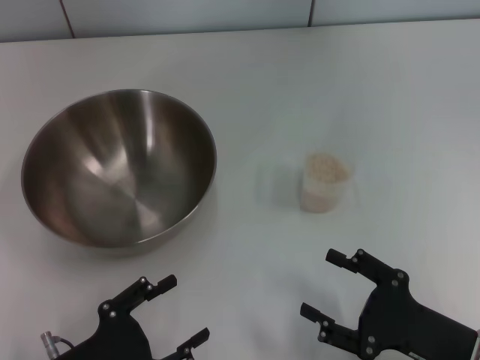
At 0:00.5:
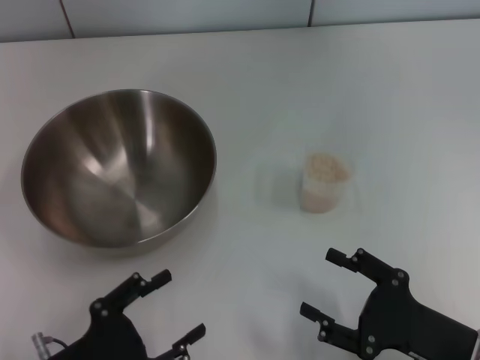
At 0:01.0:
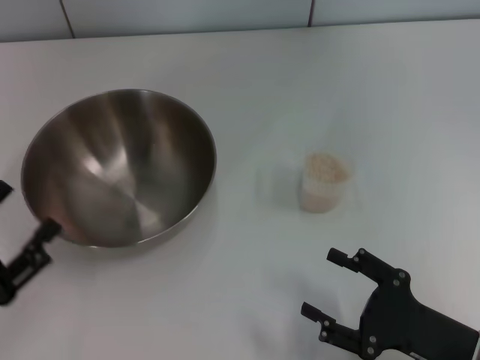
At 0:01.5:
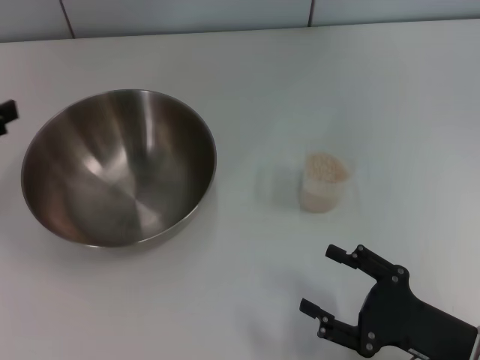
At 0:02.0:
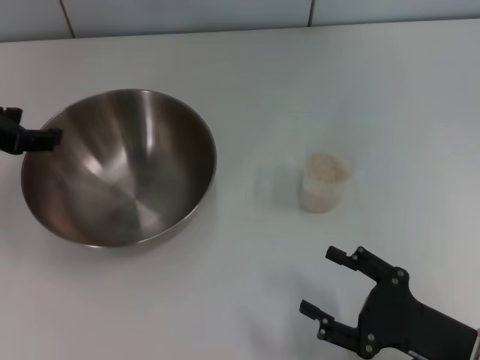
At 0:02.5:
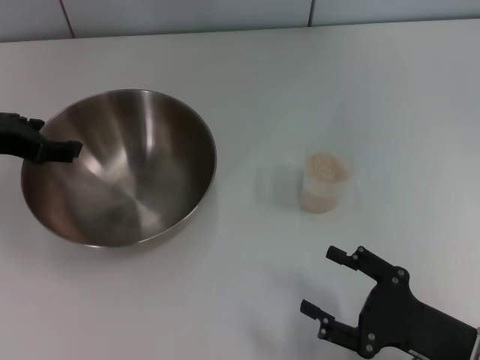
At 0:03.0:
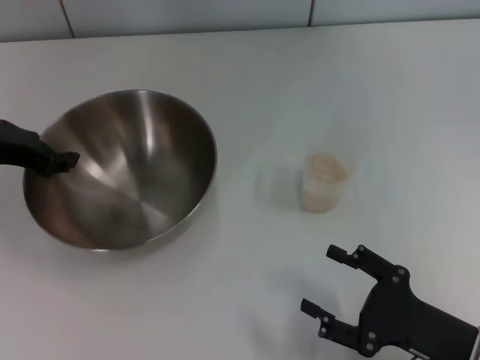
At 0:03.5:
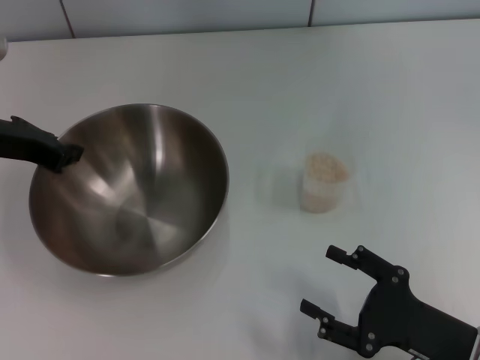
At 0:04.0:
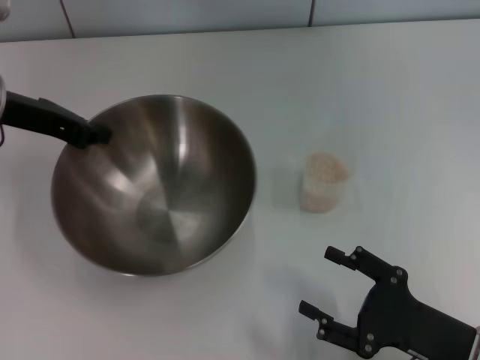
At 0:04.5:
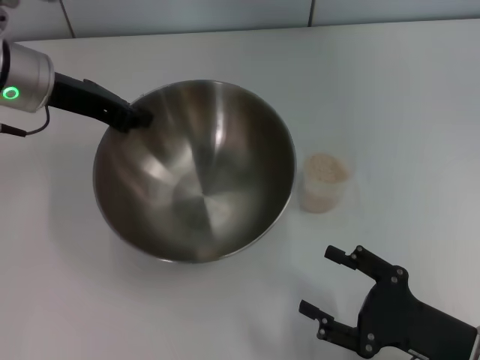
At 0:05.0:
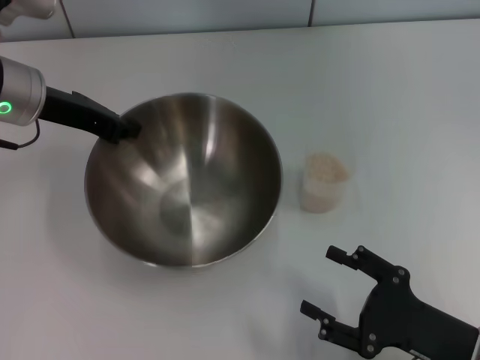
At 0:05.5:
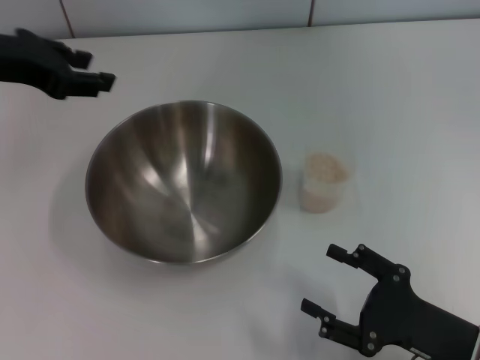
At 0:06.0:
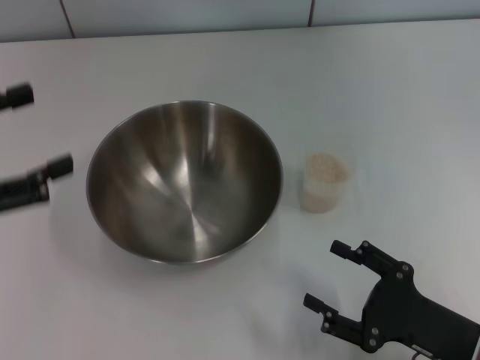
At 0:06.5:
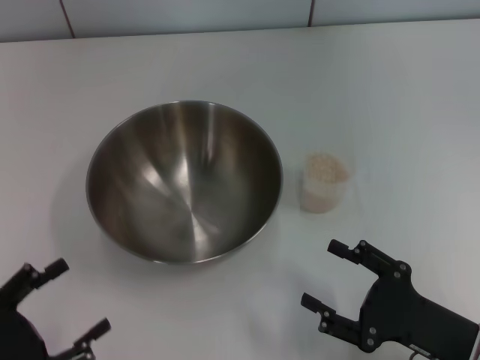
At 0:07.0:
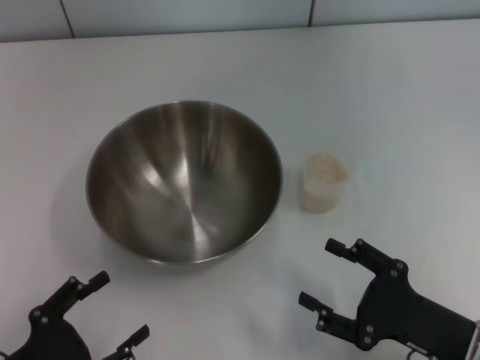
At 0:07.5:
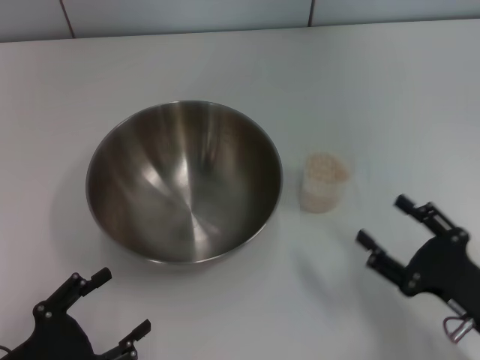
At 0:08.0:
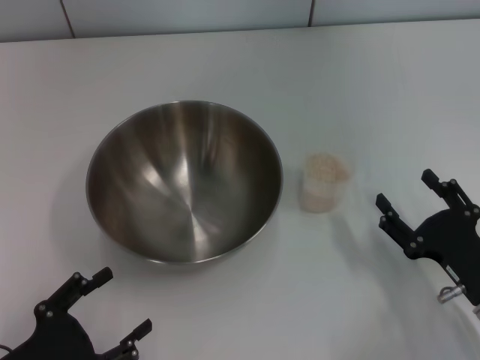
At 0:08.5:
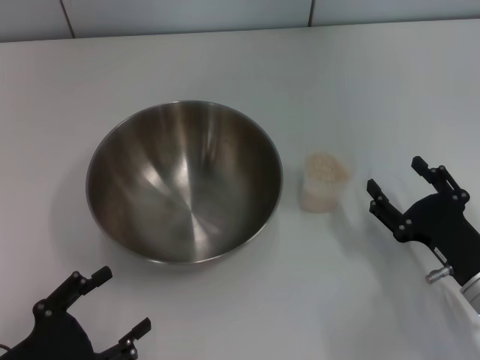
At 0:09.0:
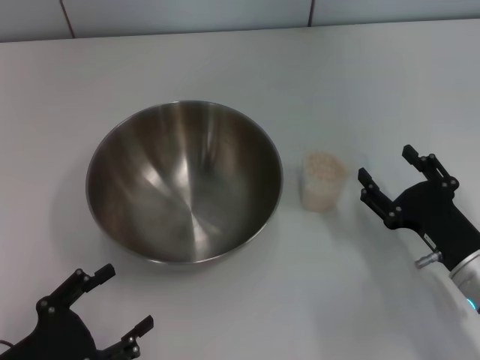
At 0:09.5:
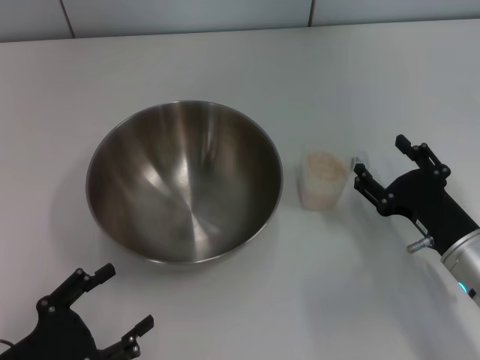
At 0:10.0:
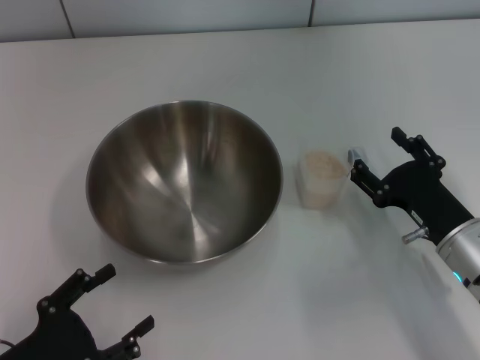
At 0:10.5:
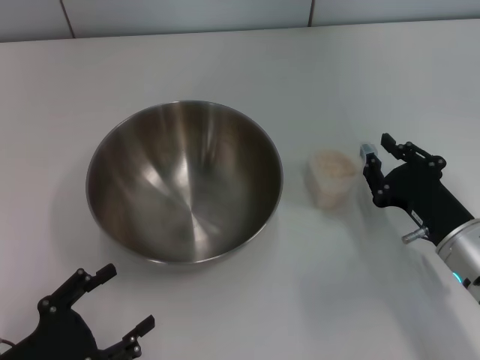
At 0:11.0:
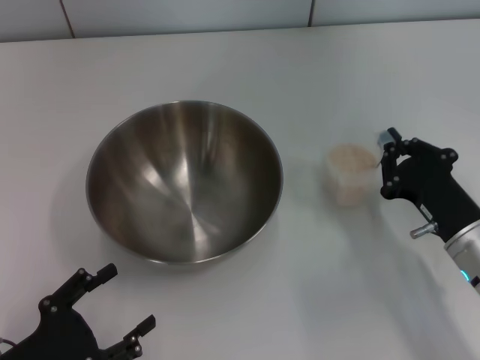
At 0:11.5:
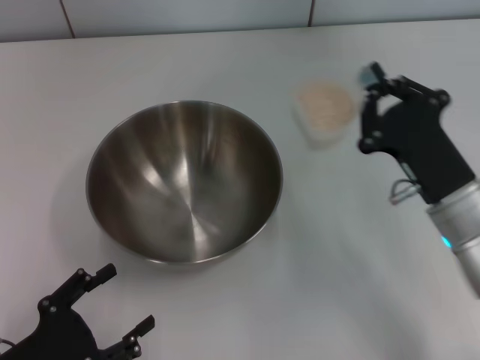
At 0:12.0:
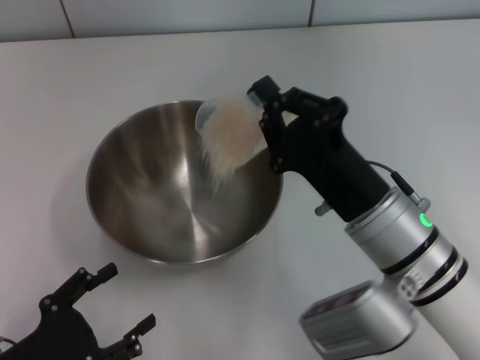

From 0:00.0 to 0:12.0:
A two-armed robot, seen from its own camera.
Task of the whole recording: Place the bowl in the middle of the table with one hand and pour the rice from the grain cup into it with the other hand.
Step, from 0:00.0 to 0:04.0: Pick up the bowl with the left gripper.
Step, from 0:04.5 to 0:05.5: Place the bowl in the center of view with the left gripper.
Step, from 0:06.0 to 0:11.0: Pick up the cup with rice in it with the right gripper.
From 0:00.0 to 0:02.0: The left gripper moves forward and upward, approximately 25 cm.
From 0:02.0 to 0:04.0: The left gripper travels forward by about 5 cm, and closes.
From 0:04.0 to 0:06.0: The left gripper goes roughly 15 cm backward, and opens its fingers.
From 0:06.0 to 0:08.0: The left gripper moves downward and backward, some 20 cm.
From 0:08.0 to 0:10.0: The right gripper travels forward by about 5 cm.
From 0:10.0 to 0:12.0: The right gripper goes approximately 15 cm to the left and upward, and closes its fingers.

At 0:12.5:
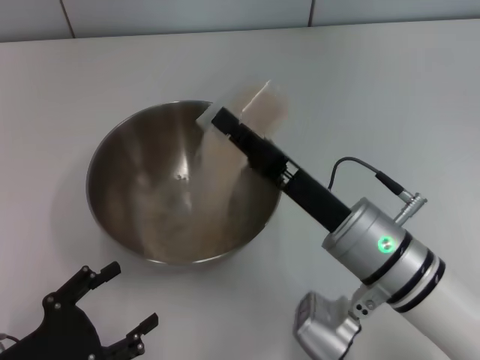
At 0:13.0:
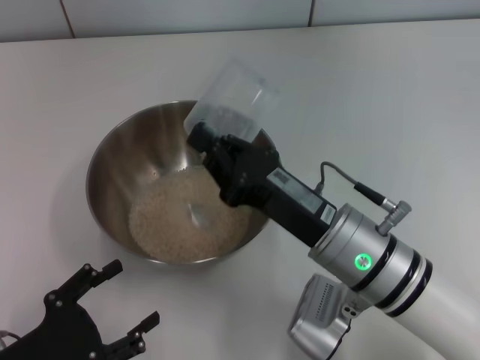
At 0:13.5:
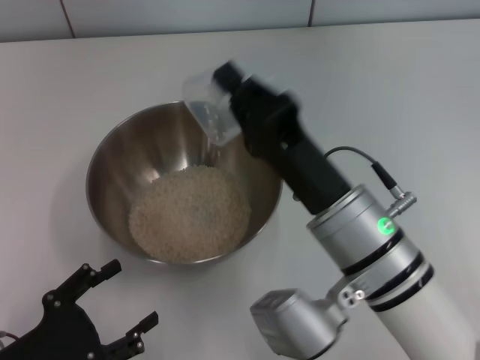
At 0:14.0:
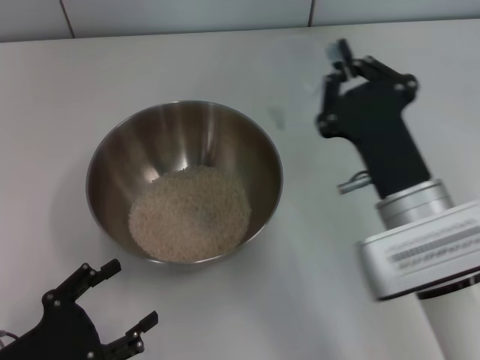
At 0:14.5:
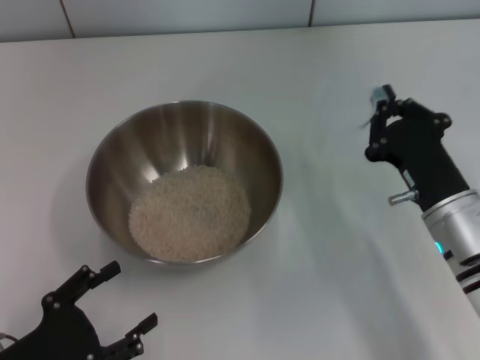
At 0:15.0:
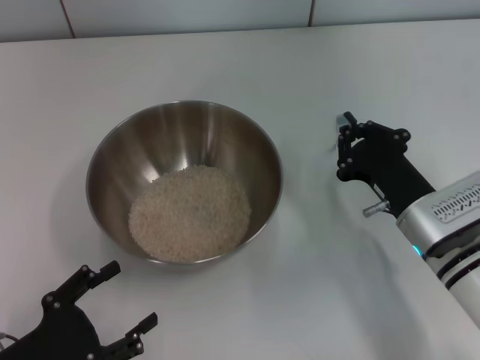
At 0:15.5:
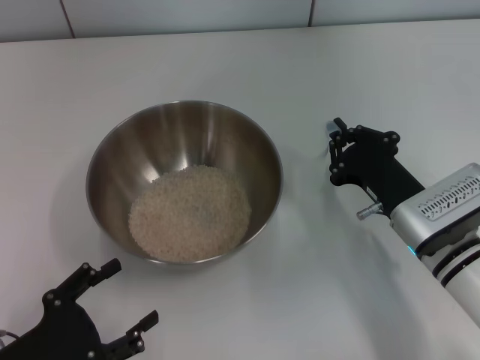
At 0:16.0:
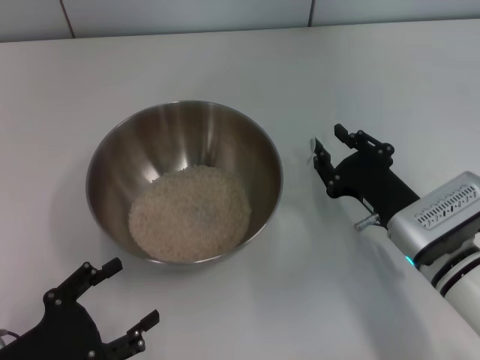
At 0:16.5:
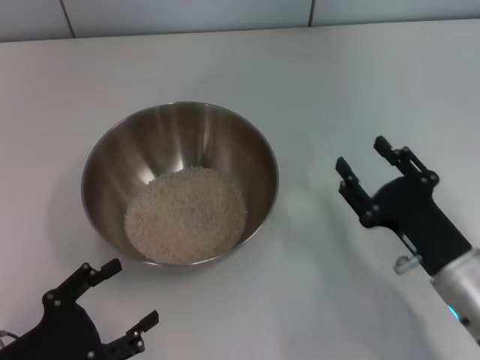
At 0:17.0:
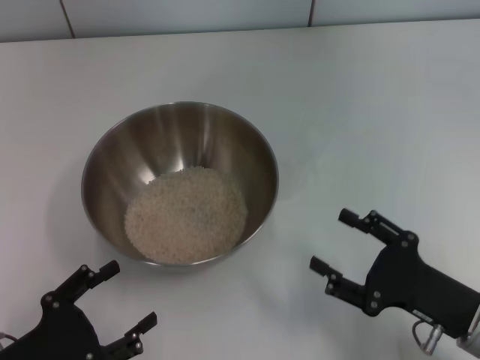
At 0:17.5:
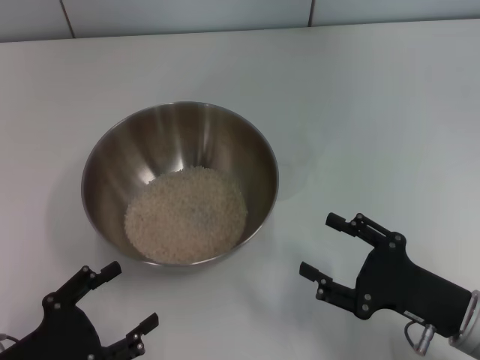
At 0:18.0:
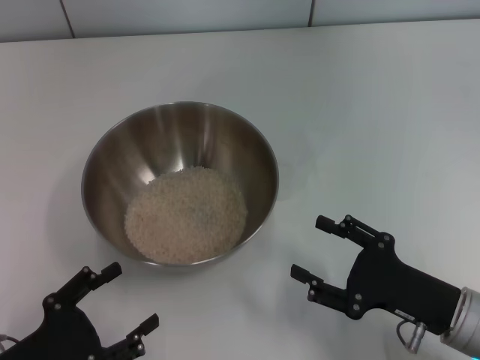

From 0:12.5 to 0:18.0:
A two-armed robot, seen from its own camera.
Task of the whole recording: Place the bowl in the middle of the table with one hand and pour the rice from the grain cup into it with the other hand.
Step, from 0:14.0 to 0:16.0: Place the cup on the table with the right gripper.
From 0:12.5 to 0:14.5: The right gripper goes approximately 10 cm to the right.
From 0:14.5 to 0:16.0: The grippers make only small movements.
From 0:16.0 to 0:18.0: The right gripper moves backward, about 10 cm, and opens up.
